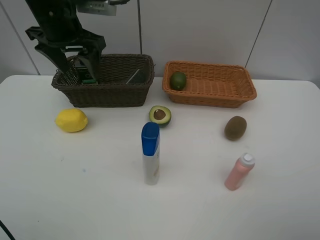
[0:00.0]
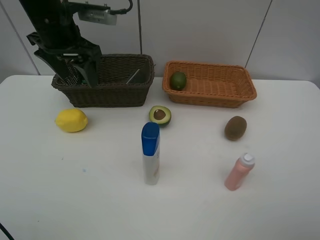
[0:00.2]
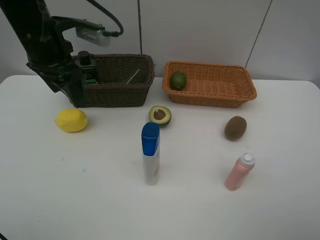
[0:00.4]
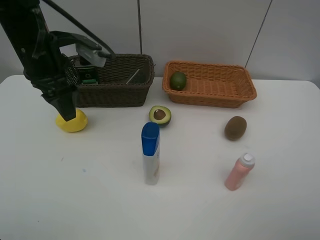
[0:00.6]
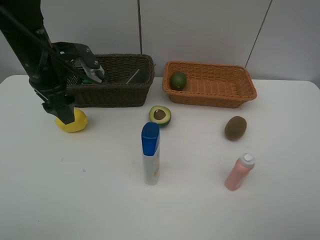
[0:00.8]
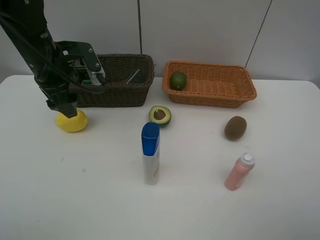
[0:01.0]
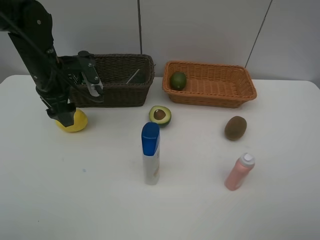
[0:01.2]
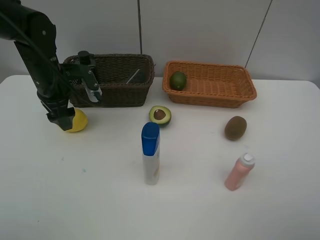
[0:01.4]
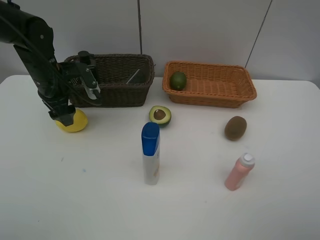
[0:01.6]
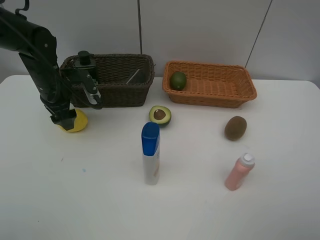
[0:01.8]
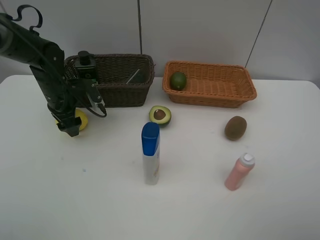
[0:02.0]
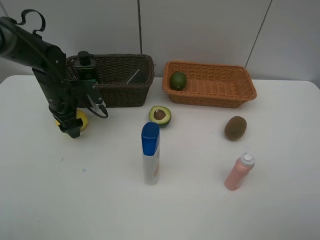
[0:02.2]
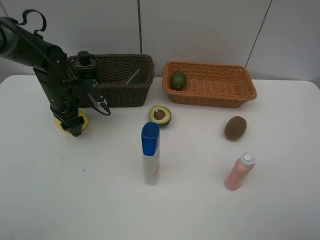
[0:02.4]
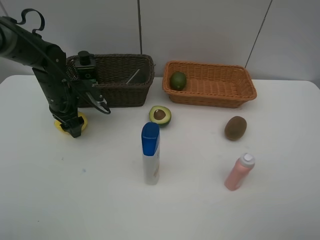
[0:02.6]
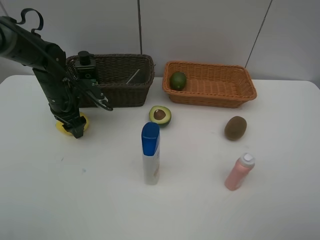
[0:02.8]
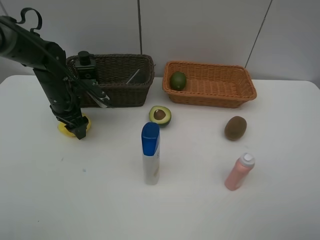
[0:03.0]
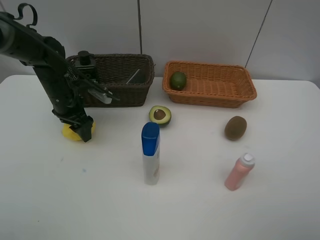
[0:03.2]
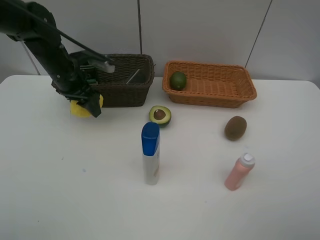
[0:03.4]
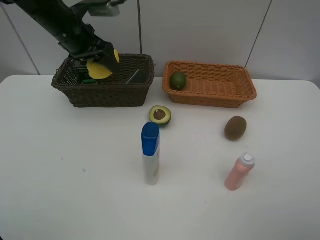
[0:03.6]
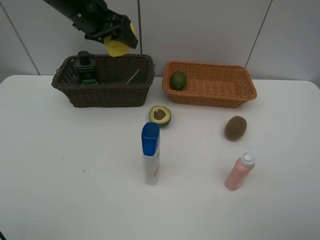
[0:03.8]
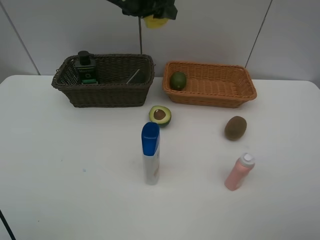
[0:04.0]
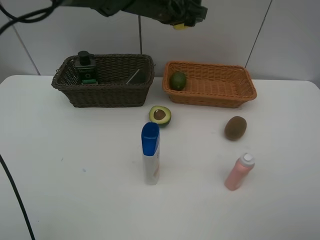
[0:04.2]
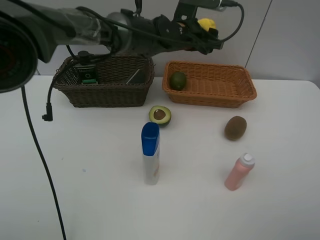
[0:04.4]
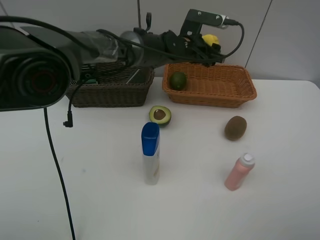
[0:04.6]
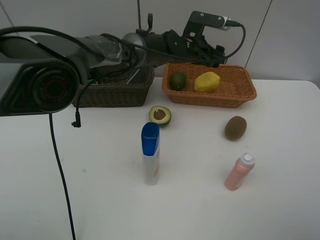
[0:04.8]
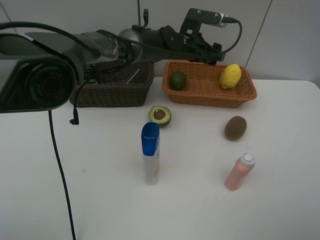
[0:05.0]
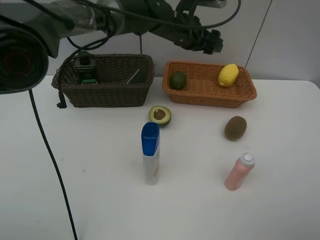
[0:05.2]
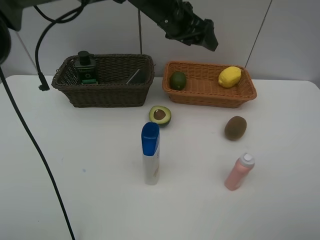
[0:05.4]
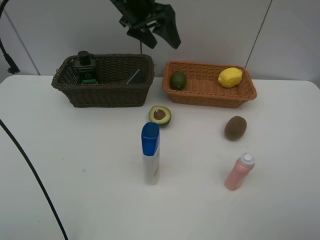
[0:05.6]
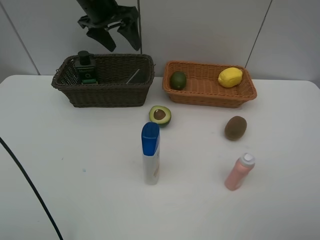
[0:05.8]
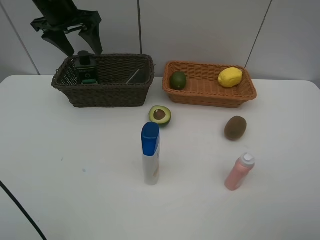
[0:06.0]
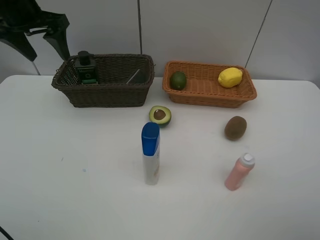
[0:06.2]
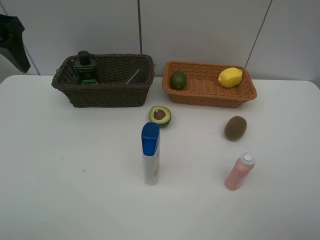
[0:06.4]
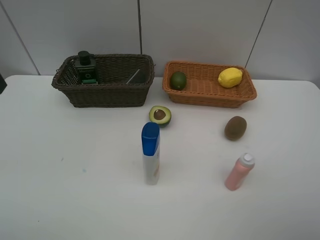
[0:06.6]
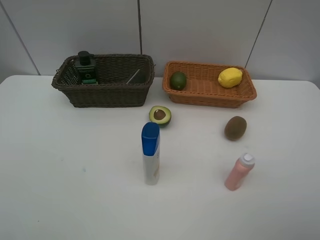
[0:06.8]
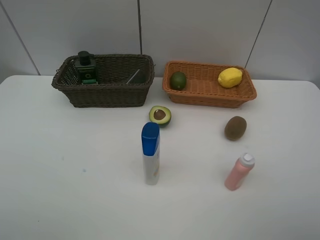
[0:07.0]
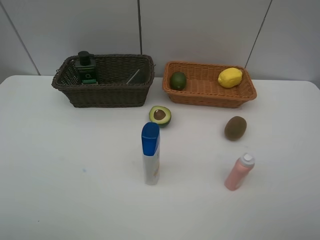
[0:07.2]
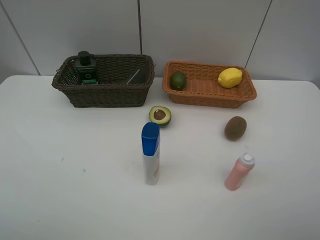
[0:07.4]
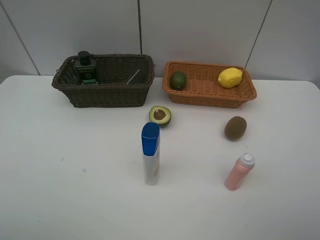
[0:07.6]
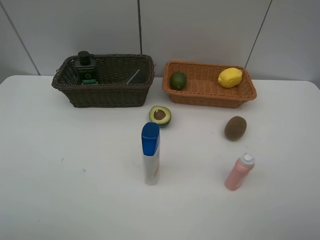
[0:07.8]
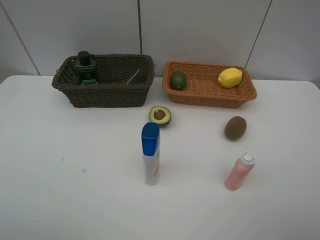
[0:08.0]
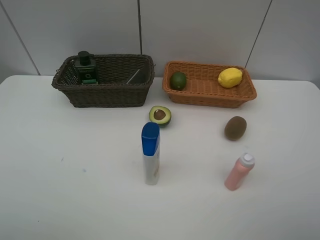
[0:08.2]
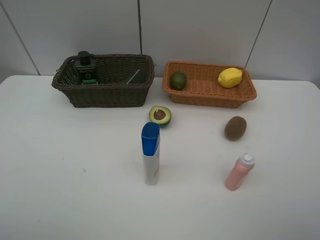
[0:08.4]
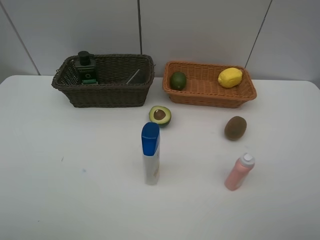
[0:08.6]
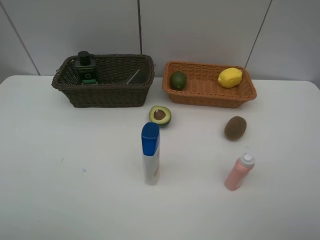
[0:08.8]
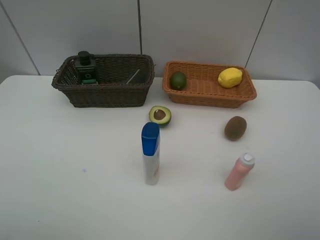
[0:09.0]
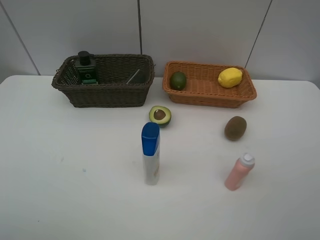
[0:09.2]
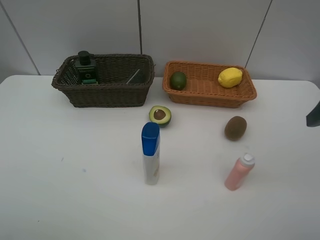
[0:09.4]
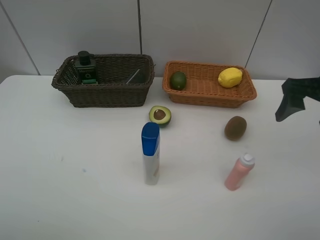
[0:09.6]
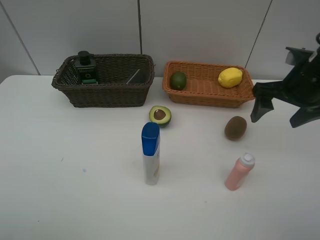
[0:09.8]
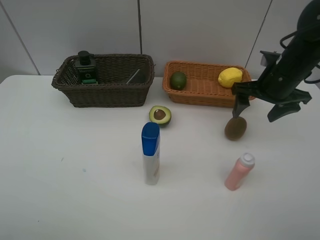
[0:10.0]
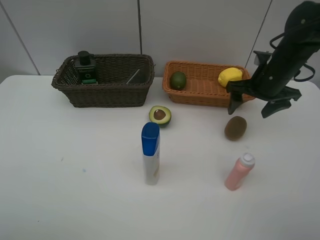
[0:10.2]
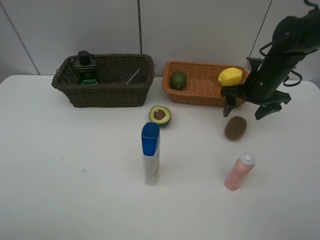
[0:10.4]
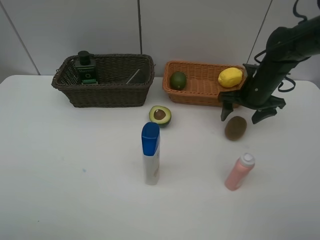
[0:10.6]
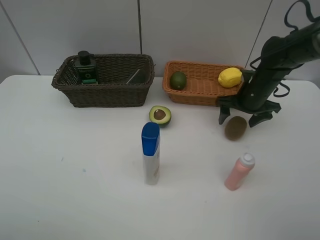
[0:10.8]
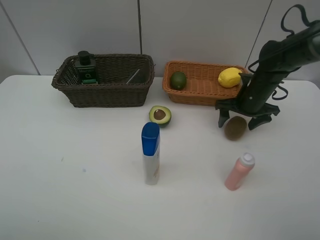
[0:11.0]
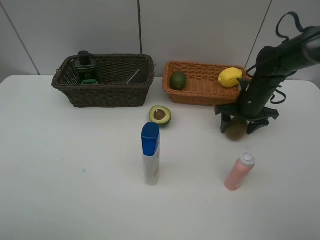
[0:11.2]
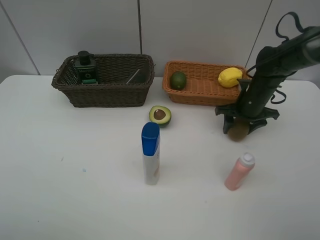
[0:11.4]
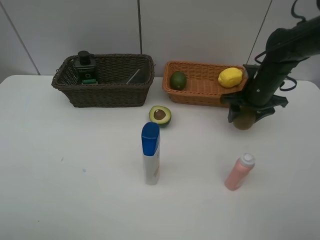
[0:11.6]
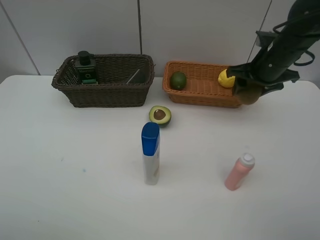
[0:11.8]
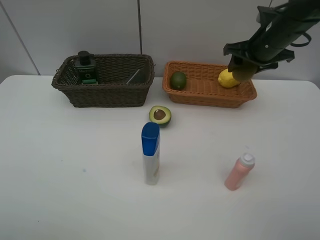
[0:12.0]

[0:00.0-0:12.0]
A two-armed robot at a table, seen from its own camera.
Task of the whole recording: Place multiple objects separately in different baskets.
Step, 0.0 to 3.2 s: Pick up the lemon with left gripper.
Step, 3.4 to 4.8 s: Place the lemon in the light basket with left gripper.
Step, 5.0 to 11.6 s: Pick up kiwi with right gripper.
0.0 to 1.6 s: The left gripper goes some 15 cm downward and to the left.
1.6 to 3.0 s: The left gripper heads downward, covering about 5 cm.
3.0 to 4.4 s: The left gripper shifts approximately 25 cm to the right.
4.4 to 6.0 s: The left gripper shifts roughly 25 cm to the left.
6.0 to 7.6 s: The left gripper shifts about 40 cm backward.
9.0 to 10.4 s: The right gripper moves forward and downward, approximately 35 cm.
10.4 to 12.0 s: The right gripper goes roughly 5 cm upward, and closes.

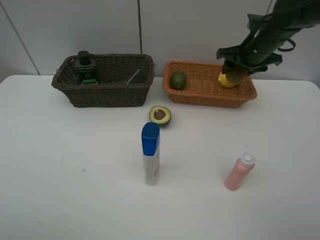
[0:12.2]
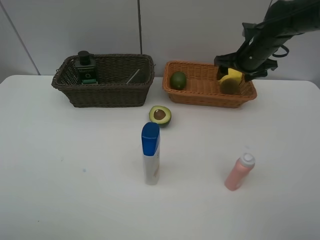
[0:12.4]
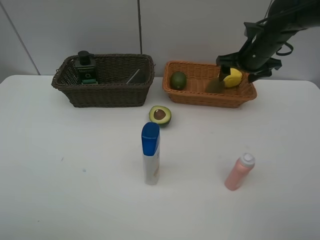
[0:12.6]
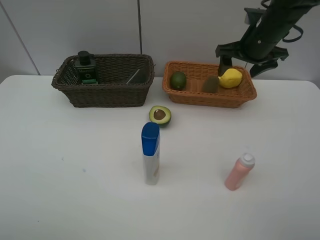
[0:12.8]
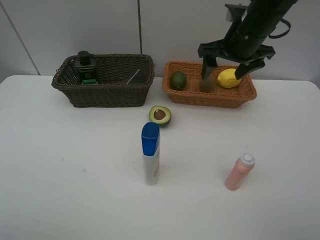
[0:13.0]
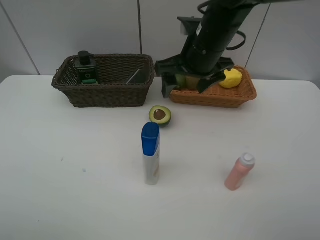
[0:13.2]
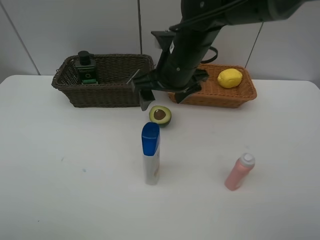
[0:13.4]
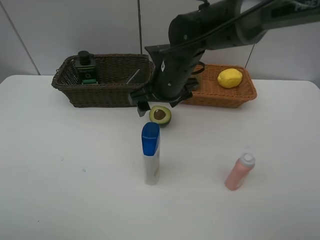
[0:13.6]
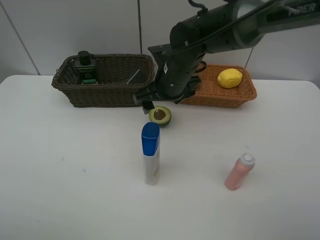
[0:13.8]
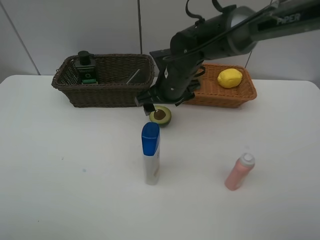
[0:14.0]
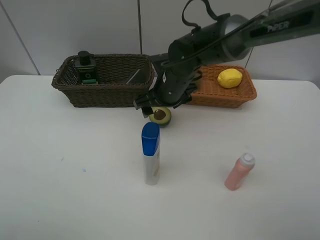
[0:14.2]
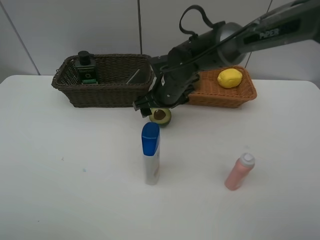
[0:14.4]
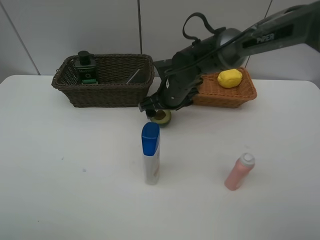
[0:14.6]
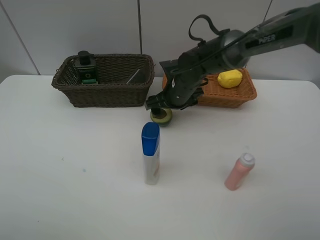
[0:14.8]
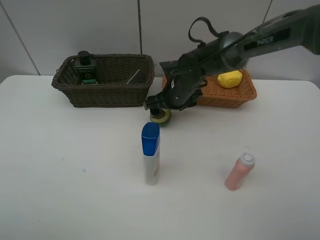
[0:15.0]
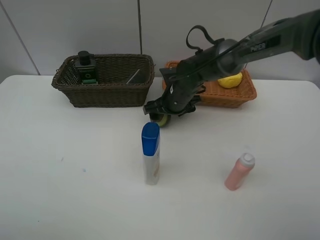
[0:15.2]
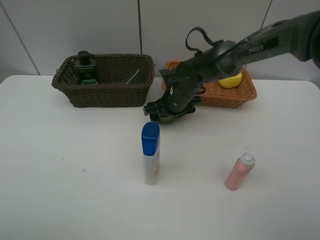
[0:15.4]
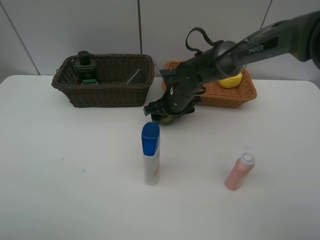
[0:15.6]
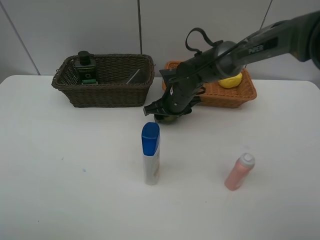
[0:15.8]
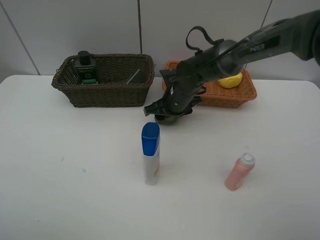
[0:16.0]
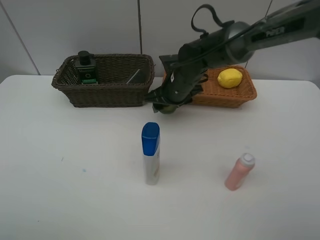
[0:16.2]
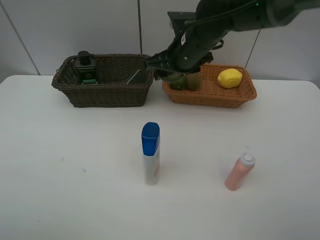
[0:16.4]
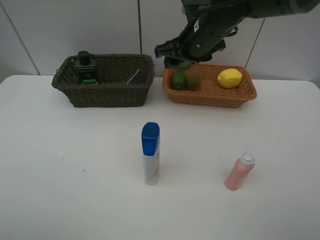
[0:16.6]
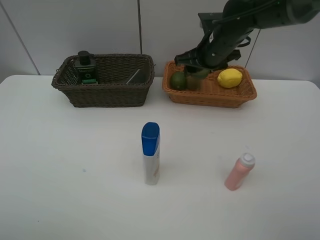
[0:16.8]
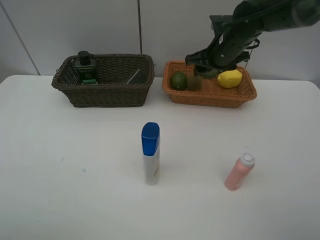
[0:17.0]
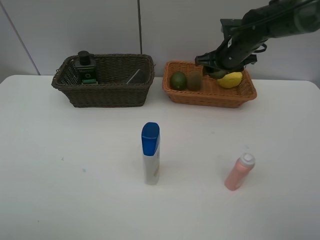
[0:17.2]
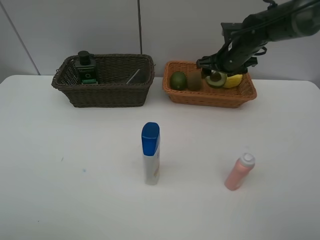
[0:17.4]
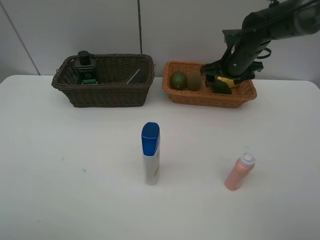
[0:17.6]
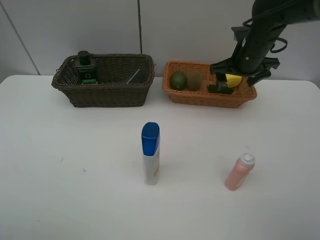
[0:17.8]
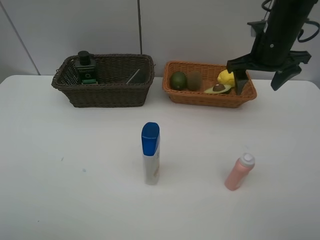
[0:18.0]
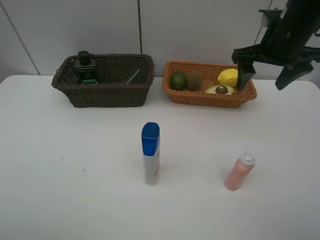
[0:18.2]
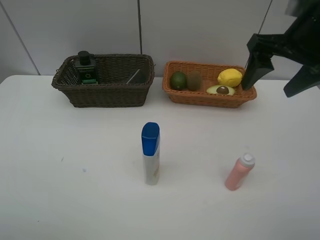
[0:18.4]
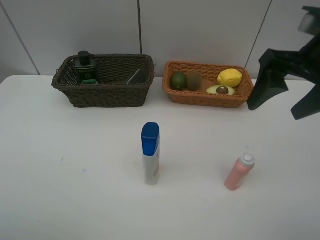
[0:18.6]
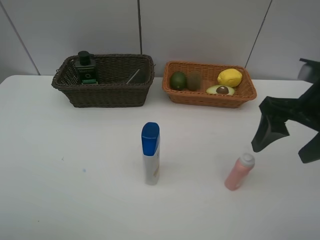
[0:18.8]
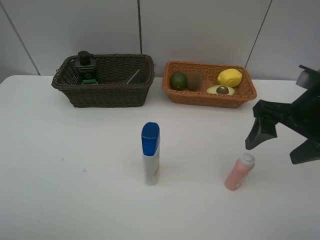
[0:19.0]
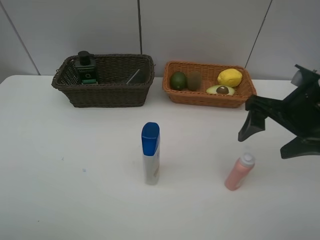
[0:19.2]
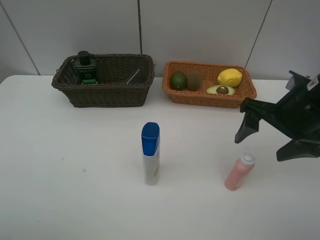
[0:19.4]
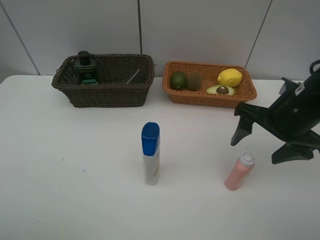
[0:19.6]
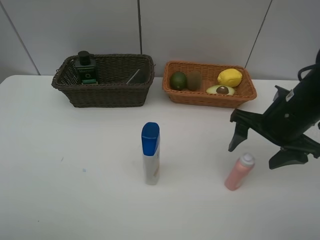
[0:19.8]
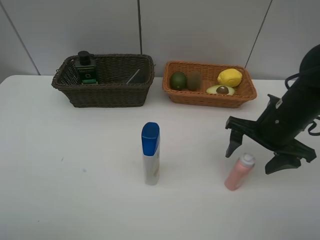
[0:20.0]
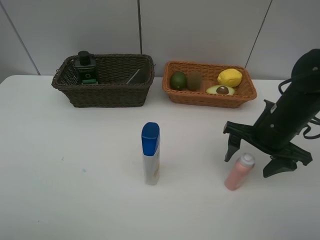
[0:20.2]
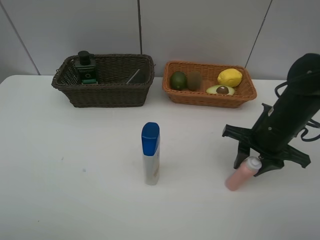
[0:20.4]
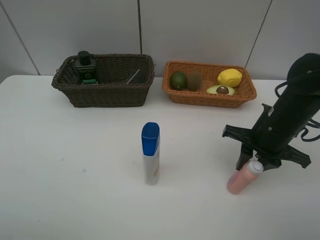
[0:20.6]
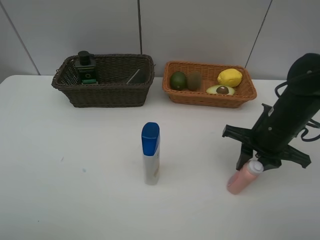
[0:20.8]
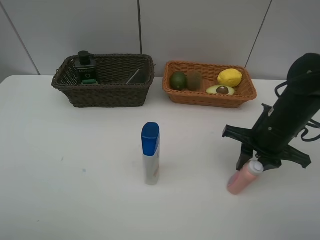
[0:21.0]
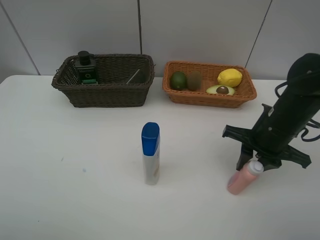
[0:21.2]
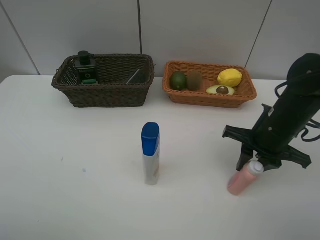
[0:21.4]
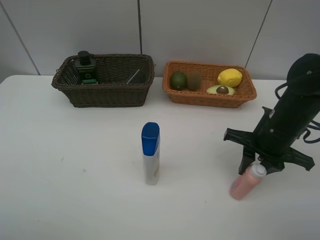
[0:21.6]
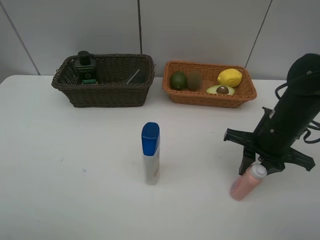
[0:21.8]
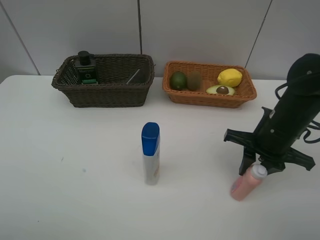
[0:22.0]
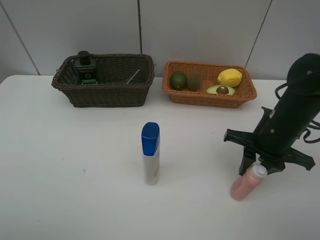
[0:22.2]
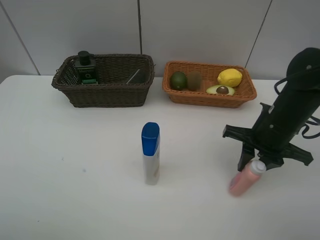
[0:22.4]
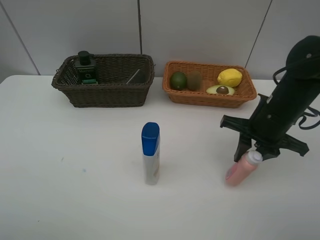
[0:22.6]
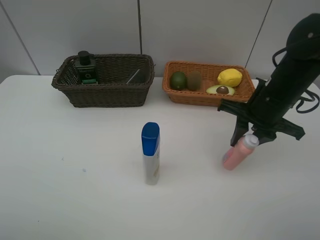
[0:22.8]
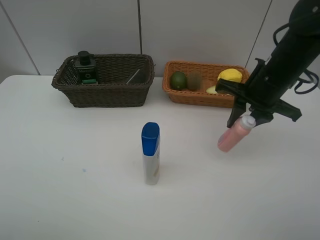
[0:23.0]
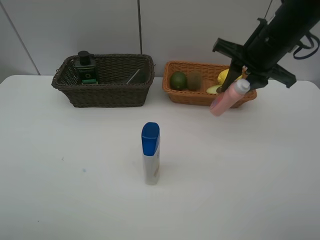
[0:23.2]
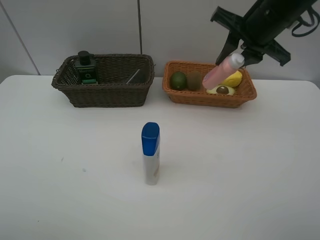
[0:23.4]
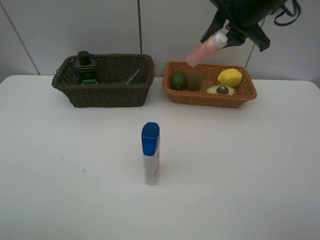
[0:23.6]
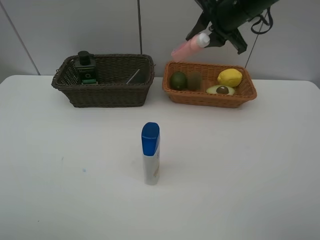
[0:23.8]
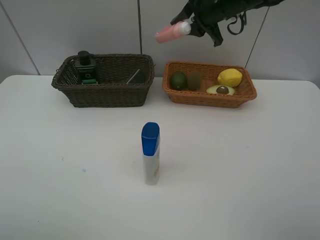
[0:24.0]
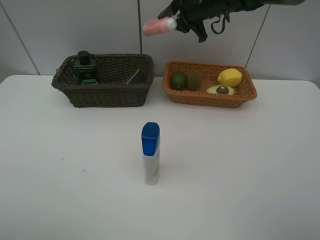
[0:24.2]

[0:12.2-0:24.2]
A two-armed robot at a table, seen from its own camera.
Task of the whole recording: Place multiple objects separately in different baskets.
Step, 12.6 to 16.2 s: Pick up the avocado with right gripper.
Step, 16.4 to 17.4 s: Place the avocado in the light basket with right gripper.
Step, 17.6 to 22.4 s: Pick up the laundry detergent with right gripper.
12.2 to 13.8 s: The right gripper moves to the left and backward, some 20 cm, and opens its fingers.
13.8 to 15.2 s: The right gripper moves downward, some 10 cm.
15.2 to 16.6 s: The right gripper goes about 15 cm upward, and closes its fingers.
16.6 to 18.2 s: The right gripper goes about 15 cm to the right, backward and upward, and opens up.
18.2 to 19.8 s: The right gripper heads downward and backward, covering about 15 cm.
19.8 to 21.2 s: The right gripper closes its fingers.
21.2 to 22.6 s: The grippers make only small movements.
22.6 to 24.2 s: The right gripper moves forward, to the left and upward, roughly 25 cm.
